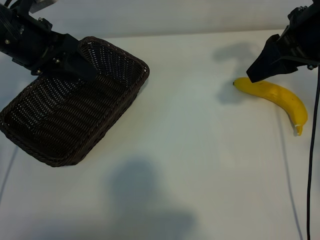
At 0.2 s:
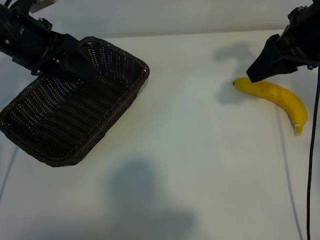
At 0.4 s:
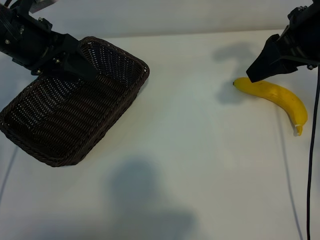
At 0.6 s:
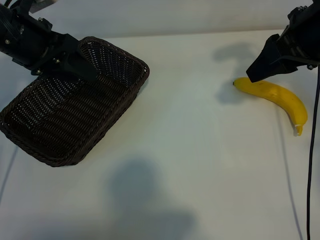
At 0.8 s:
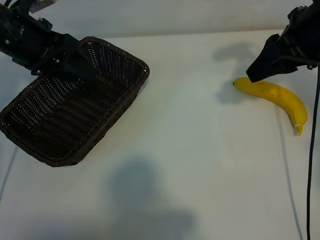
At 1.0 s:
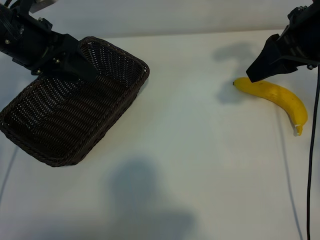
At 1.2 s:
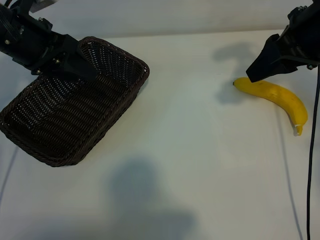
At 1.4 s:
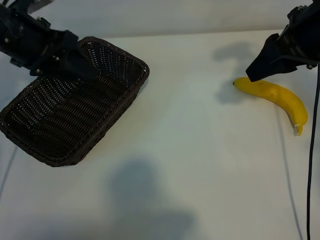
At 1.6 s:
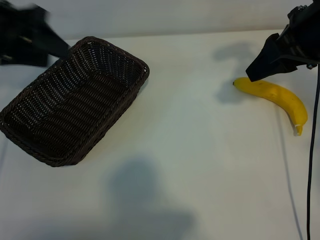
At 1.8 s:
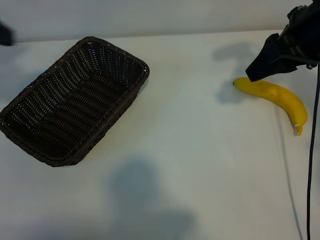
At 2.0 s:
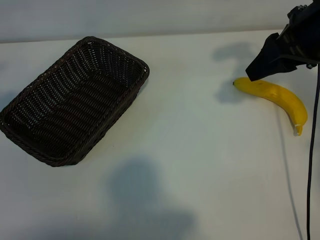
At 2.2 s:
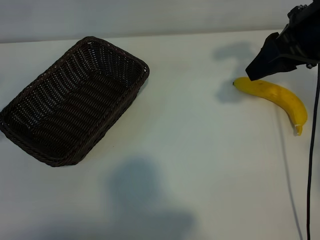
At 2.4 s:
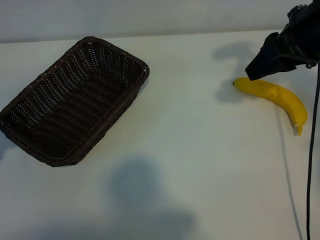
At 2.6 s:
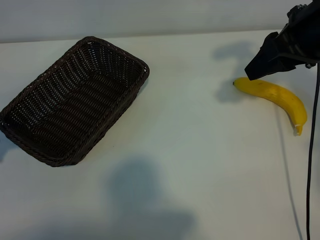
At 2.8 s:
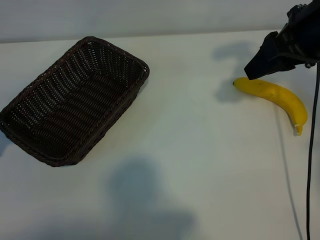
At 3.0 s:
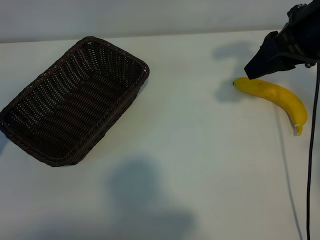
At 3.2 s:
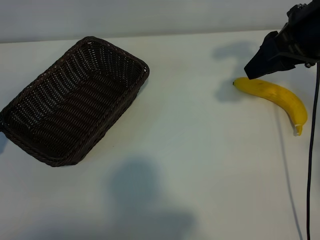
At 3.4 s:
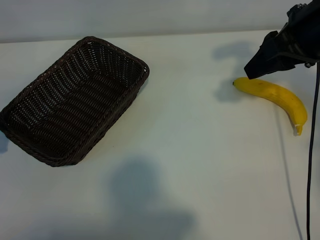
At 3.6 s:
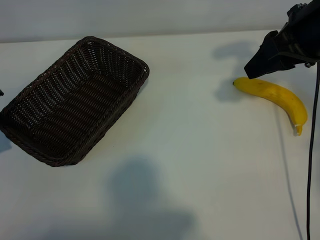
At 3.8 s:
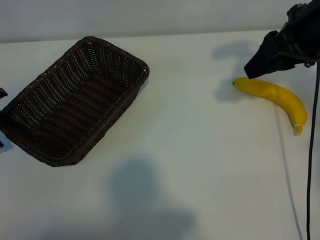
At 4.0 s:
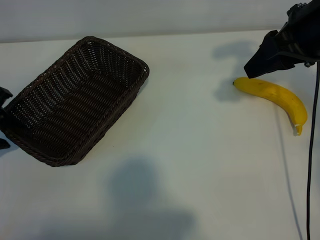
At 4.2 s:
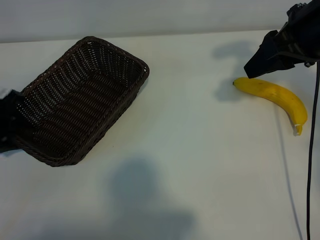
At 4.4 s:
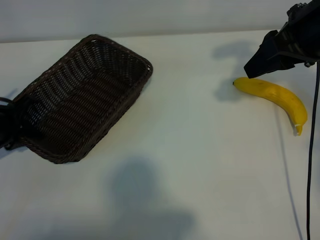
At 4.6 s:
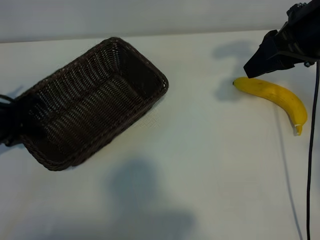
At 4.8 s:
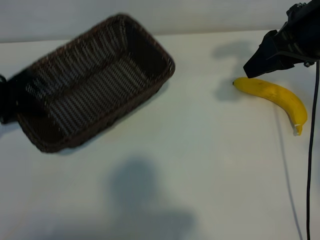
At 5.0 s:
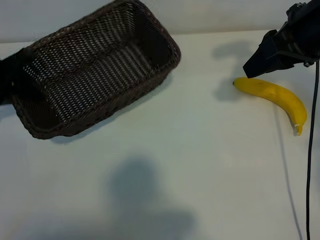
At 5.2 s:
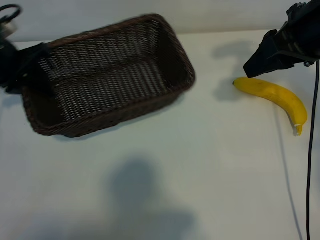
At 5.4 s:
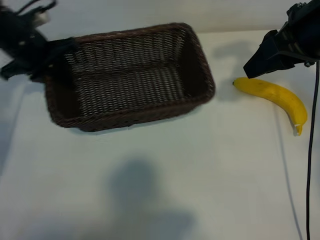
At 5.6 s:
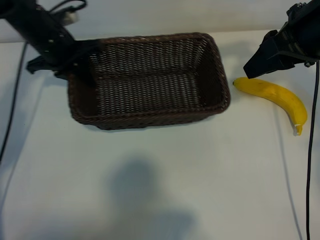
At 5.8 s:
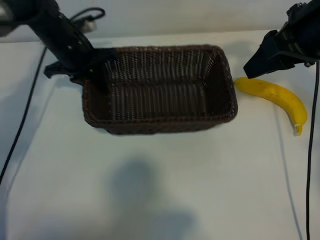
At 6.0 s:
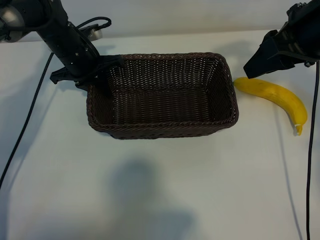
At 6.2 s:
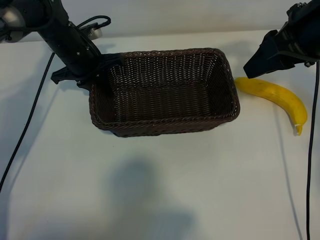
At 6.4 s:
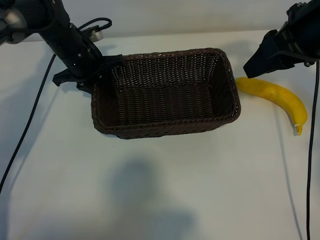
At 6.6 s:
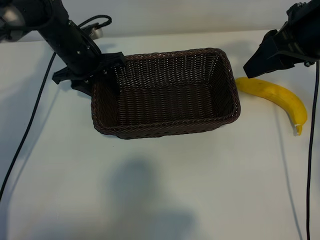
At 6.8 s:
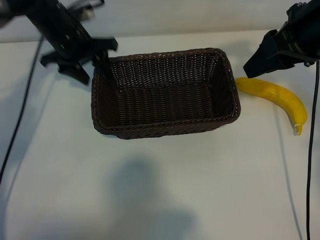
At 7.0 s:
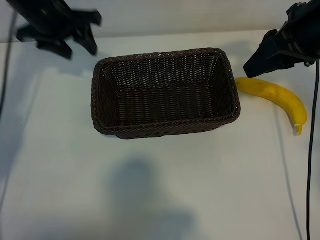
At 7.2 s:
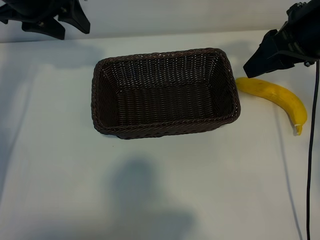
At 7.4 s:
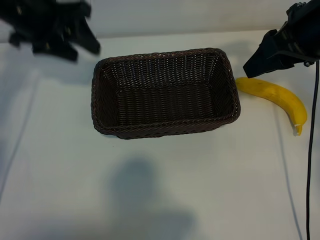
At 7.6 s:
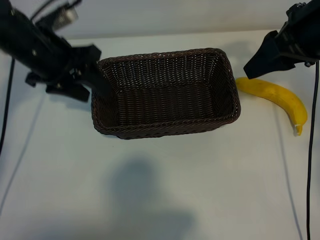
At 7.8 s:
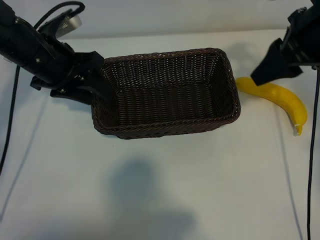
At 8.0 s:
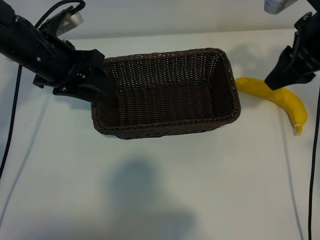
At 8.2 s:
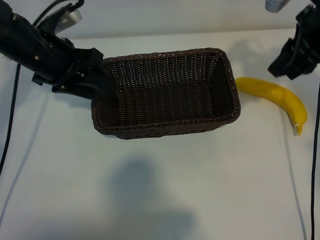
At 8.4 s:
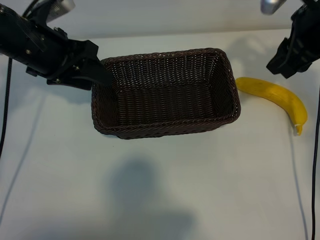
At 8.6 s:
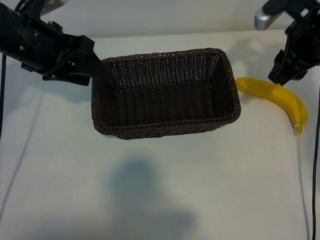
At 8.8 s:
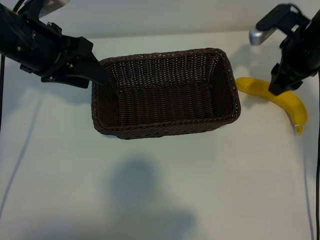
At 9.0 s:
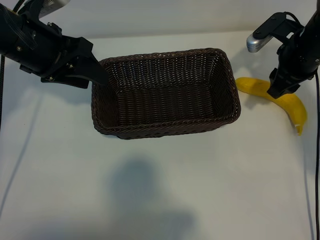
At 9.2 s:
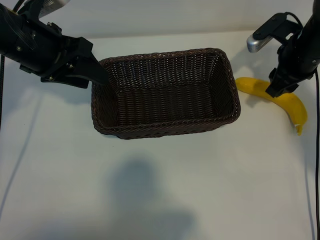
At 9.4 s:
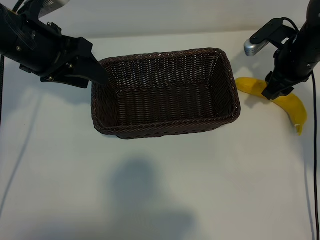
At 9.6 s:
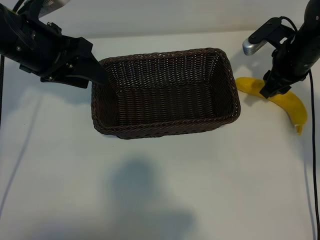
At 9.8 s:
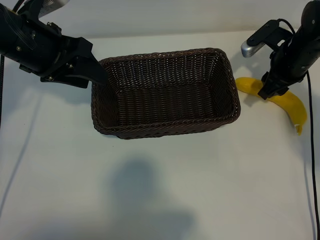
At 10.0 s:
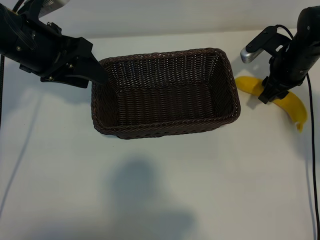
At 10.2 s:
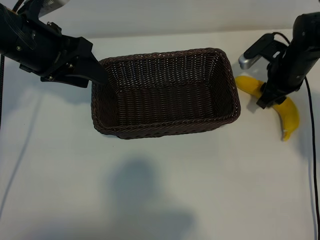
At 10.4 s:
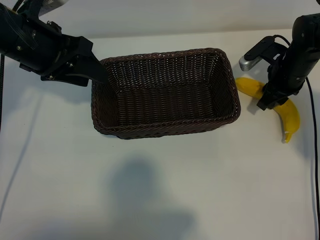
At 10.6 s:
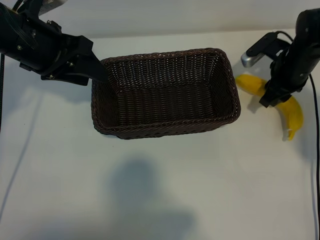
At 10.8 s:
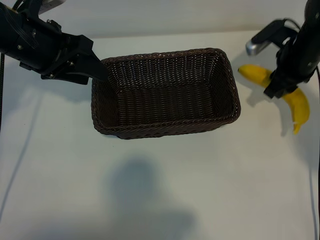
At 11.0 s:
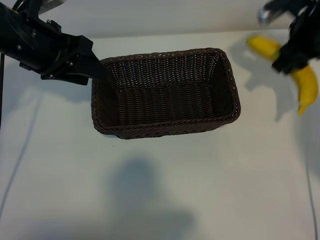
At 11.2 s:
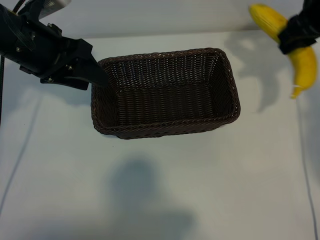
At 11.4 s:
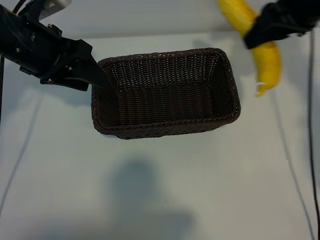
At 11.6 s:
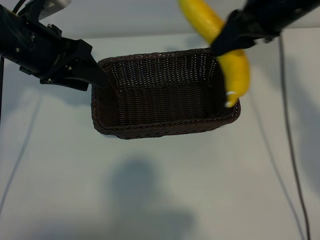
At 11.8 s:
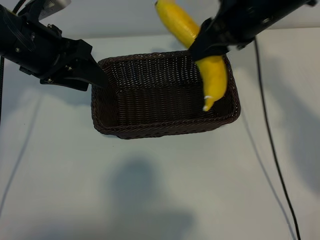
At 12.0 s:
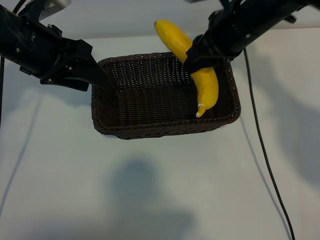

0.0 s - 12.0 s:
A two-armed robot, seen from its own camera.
Task of the whole recording: pick up the banana and put it into the basket.
Step, 1.0 s - 4.4 s: Grasp the basket with the left gripper.
Step, 4.6 s - 6.6 s: Place the basket in the center of the table with the left gripper.
Step, 6.8 s - 10.2 s: Grasp the banana with right gripper.

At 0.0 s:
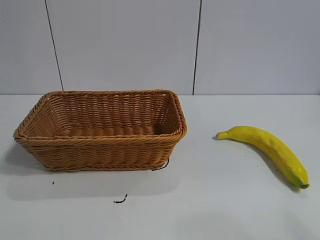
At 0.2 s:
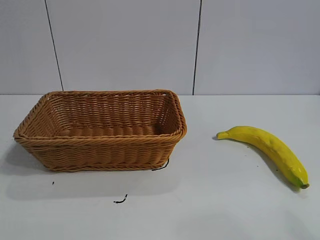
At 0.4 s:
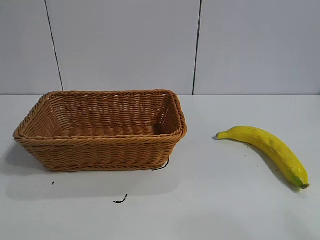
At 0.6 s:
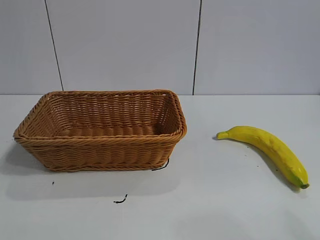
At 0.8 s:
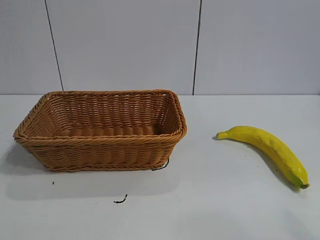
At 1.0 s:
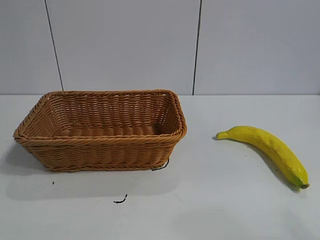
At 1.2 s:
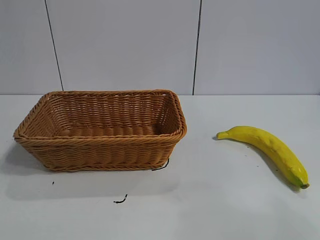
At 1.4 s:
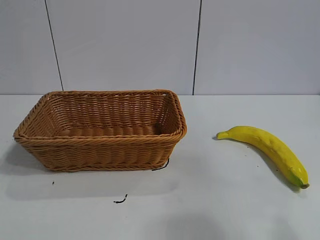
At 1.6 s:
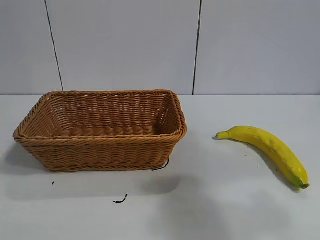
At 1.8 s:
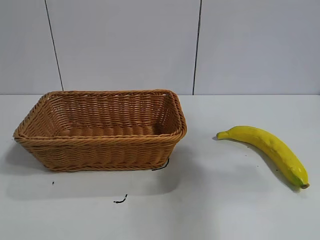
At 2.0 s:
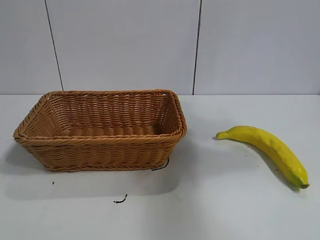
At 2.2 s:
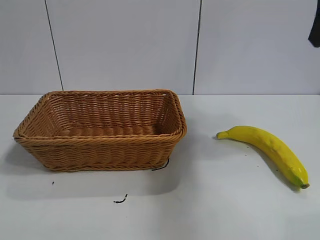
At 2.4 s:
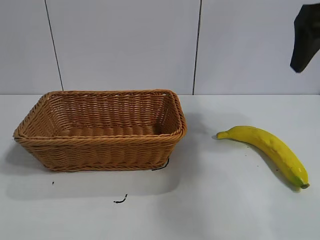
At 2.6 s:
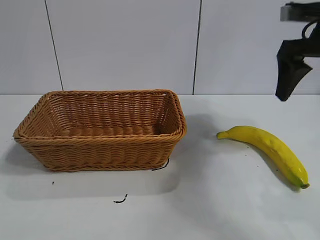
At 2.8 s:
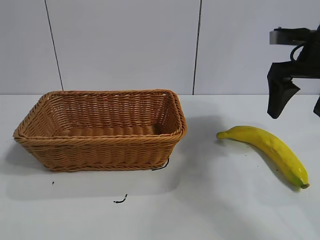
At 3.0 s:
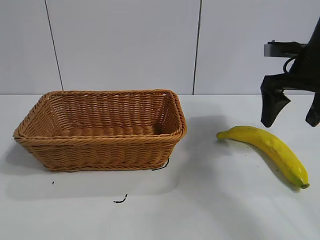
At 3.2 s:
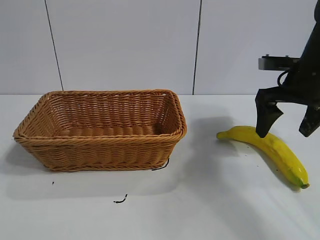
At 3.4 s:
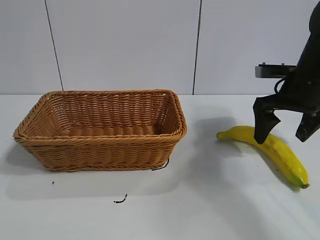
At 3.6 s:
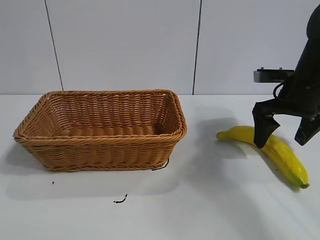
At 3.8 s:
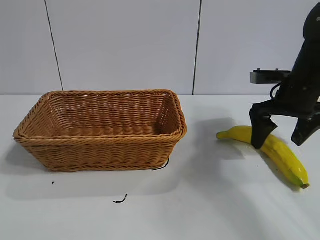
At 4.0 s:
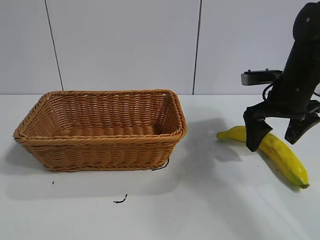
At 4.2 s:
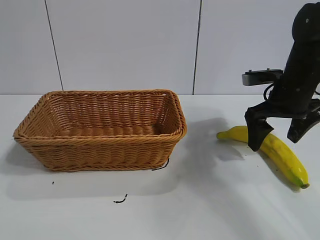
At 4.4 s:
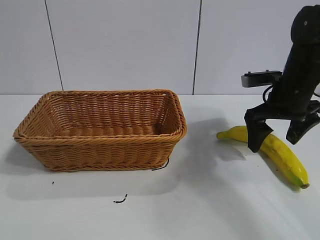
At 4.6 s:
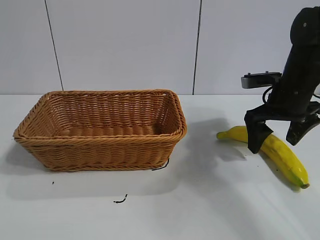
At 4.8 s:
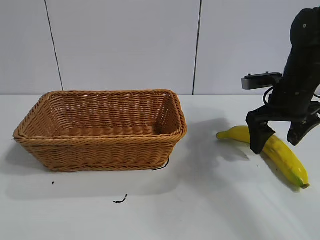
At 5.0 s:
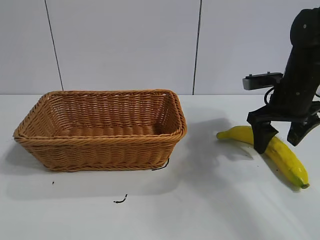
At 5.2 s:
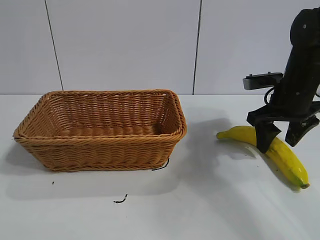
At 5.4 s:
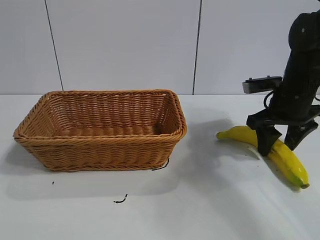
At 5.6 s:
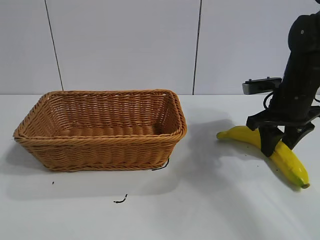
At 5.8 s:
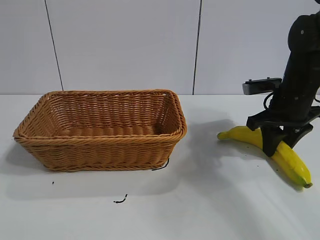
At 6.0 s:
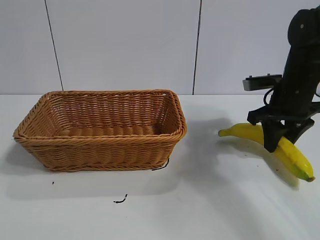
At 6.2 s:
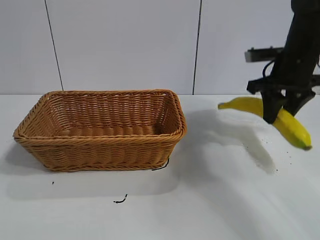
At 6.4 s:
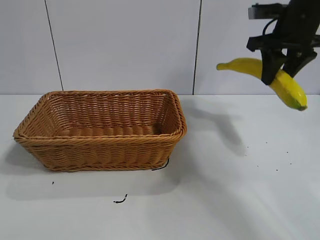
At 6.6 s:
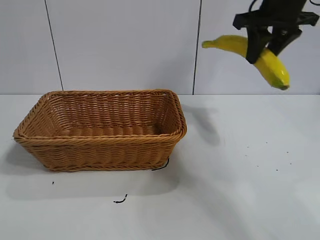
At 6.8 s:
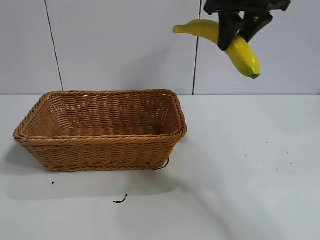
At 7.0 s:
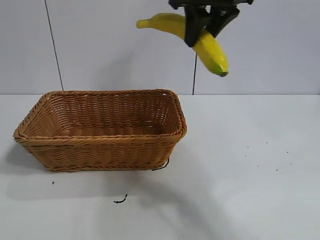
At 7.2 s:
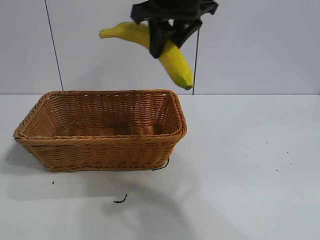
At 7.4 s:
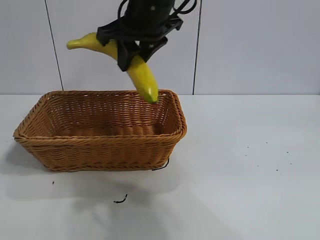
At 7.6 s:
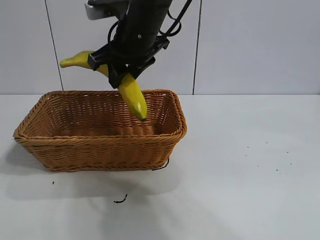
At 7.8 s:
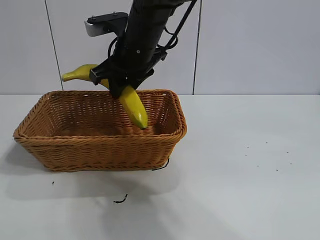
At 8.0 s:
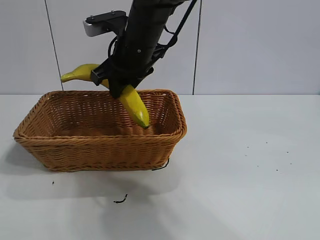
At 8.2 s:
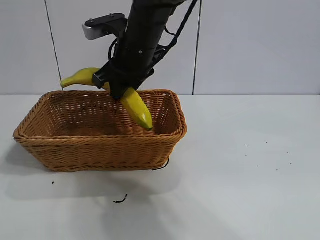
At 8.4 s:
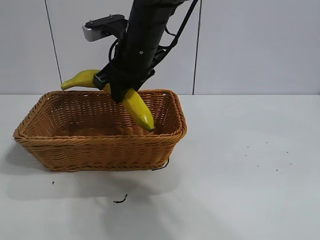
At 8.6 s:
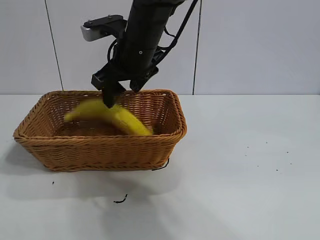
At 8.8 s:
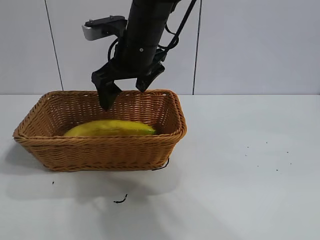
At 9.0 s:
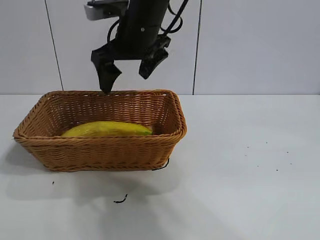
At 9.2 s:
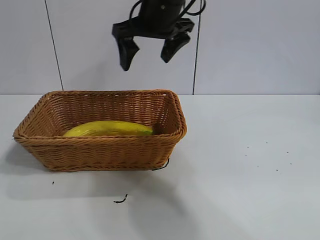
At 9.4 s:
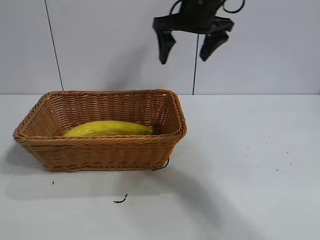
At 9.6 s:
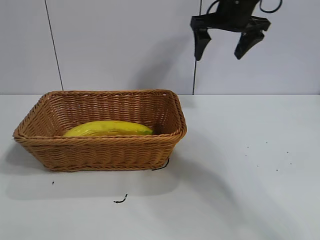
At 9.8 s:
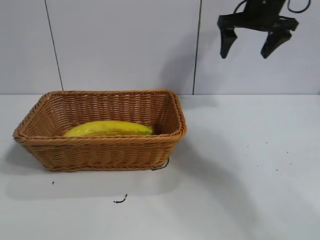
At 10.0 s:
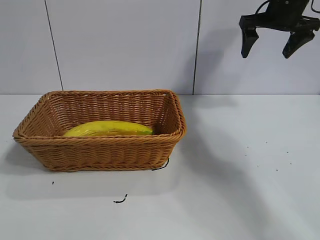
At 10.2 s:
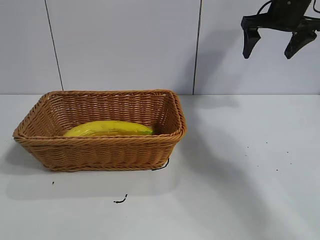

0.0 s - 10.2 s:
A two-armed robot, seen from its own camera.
Task of the whole recording: pick up the banana and put it into the basket.
Step, 2.2 s - 6.0 s: Grasp the banana with right gripper.
Step, 6.2 s - 8.8 s: Place the banana in the basket with right gripper.
